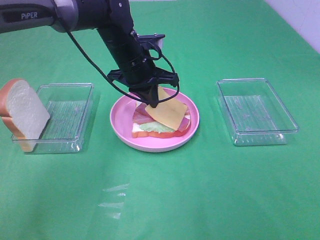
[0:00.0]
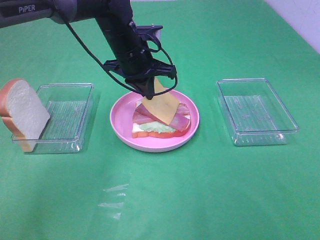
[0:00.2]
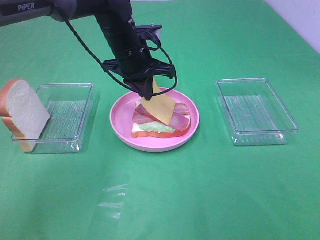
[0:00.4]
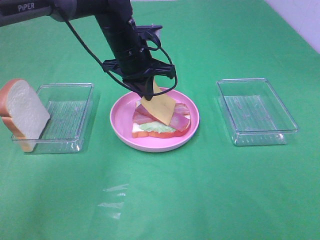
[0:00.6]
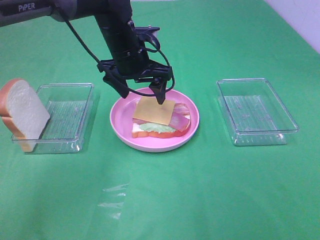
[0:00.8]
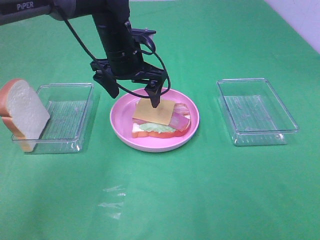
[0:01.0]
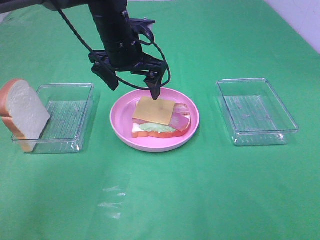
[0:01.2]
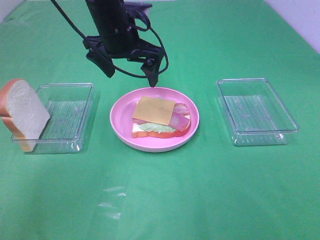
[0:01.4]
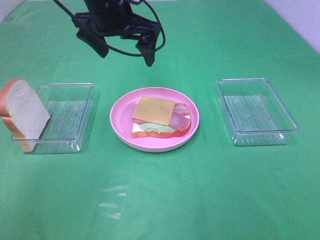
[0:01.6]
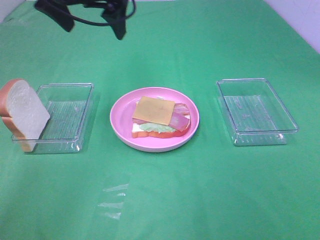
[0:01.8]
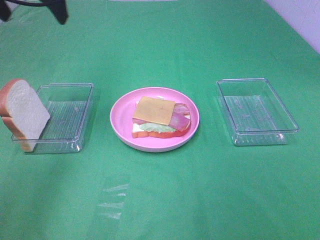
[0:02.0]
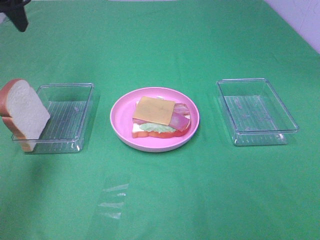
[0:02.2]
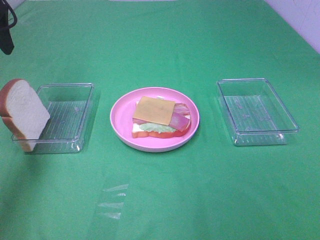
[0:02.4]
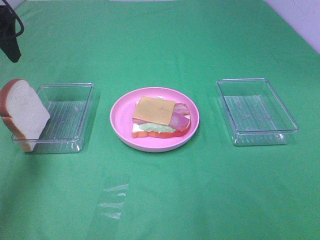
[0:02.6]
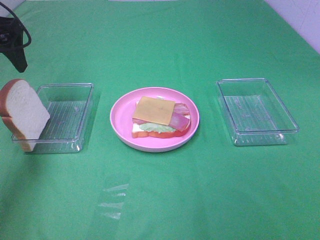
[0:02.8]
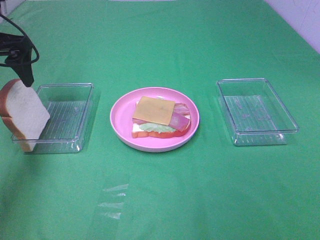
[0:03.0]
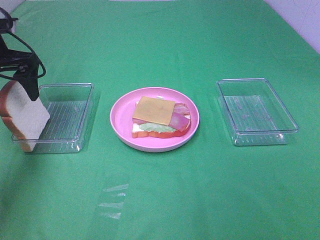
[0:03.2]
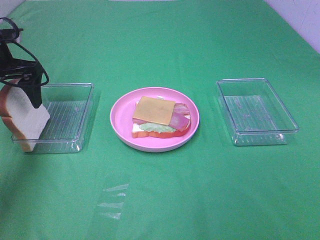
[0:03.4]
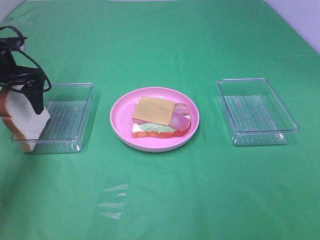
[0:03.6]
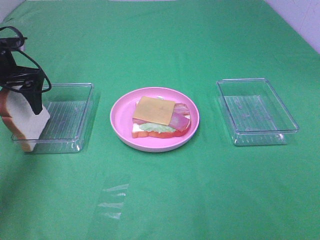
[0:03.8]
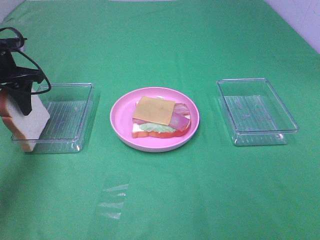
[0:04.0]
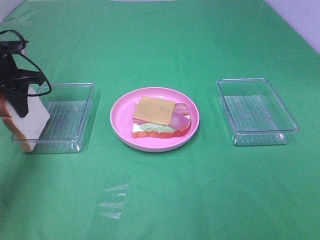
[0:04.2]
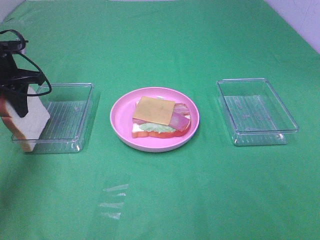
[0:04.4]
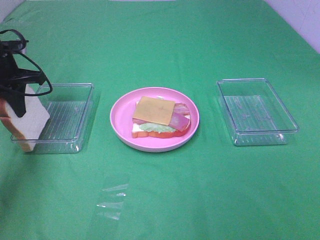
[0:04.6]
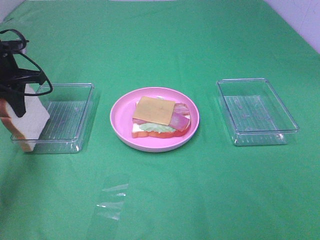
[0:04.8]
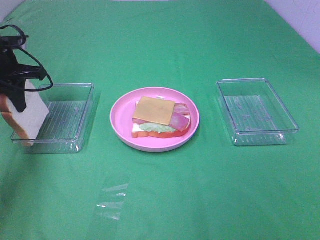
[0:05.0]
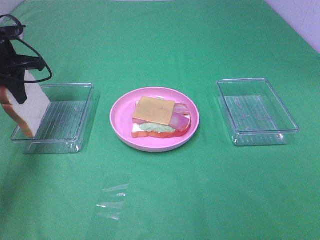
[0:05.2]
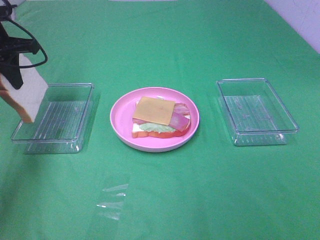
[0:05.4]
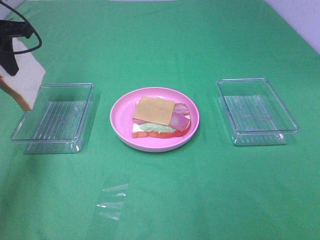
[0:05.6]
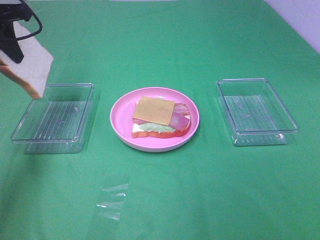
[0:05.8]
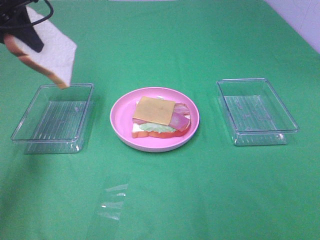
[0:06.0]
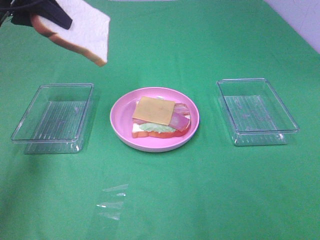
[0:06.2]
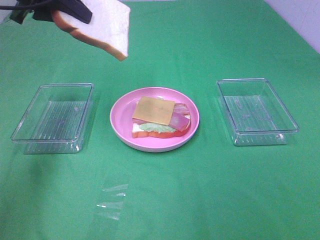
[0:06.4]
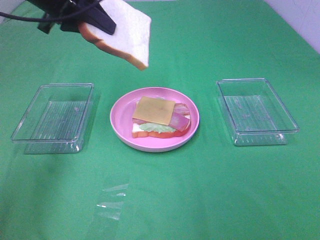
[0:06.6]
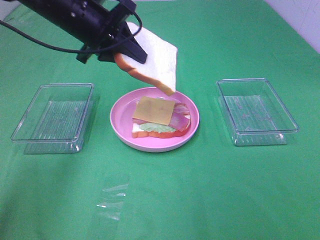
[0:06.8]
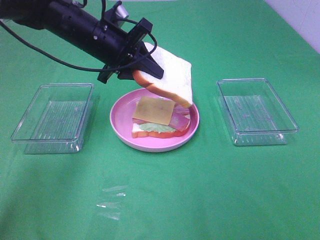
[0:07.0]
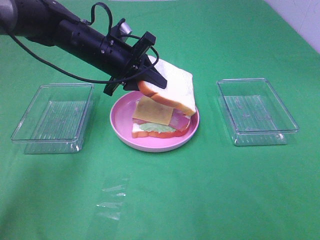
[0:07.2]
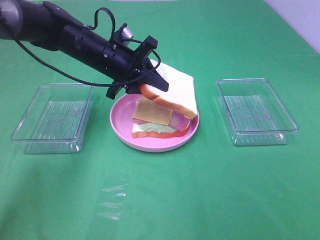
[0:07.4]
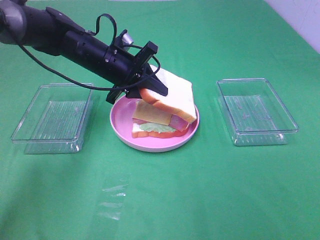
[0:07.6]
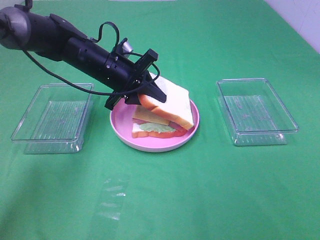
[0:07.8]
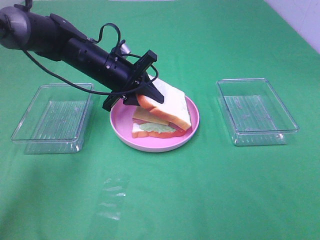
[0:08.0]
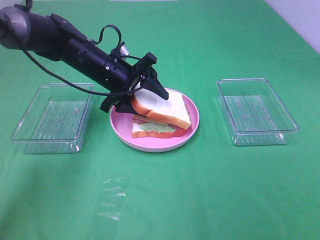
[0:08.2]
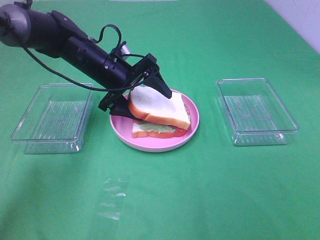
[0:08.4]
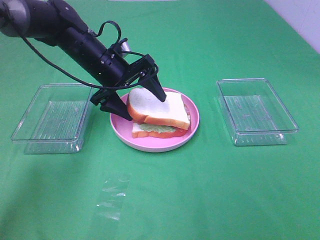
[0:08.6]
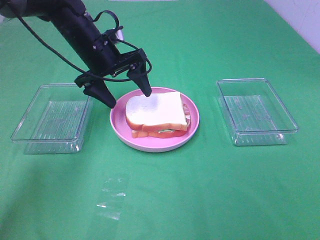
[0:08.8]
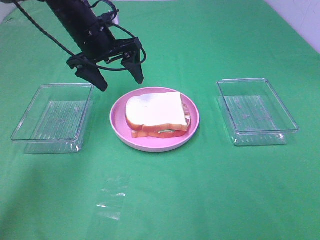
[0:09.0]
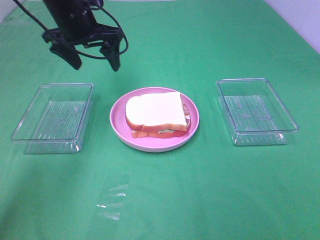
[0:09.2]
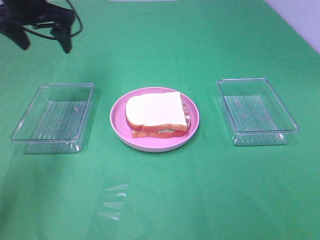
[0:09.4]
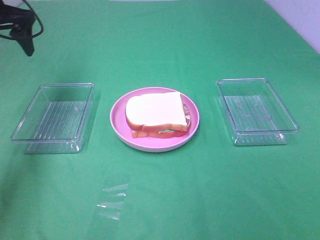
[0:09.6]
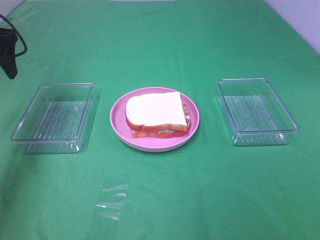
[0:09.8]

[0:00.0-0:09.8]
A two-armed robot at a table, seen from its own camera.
Task of the whole recording: Make sandwiches.
Step, 0.8 to 4.6 s: Left hand:grab the bread slice.
Step, 4.8 to 8.6 s: Left hand:place the bread slice on the plate.
0.0 to 1.4 s: The left gripper goes about 5 cm upward, and opens its fingers.
1.4 to 2.8 s: The left gripper is displaced to the left by approximately 20 cm.
2.8 to 4.2 s: The left gripper travels downward by roughly 10 cm, and closes up.
4.2 to 5.6 s: The left gripper moves upward, about 10 cm.
5.6 to 7.0 s: The left gripper is displaced to the right and downward by roughly 20 cm.
7.0 to 8.4 s: The left gripper moves downward, about 5 cm, and opens its fingers.
8.4 to 9.8 s: The left gripper shifts about 25 cm to the left and upward.

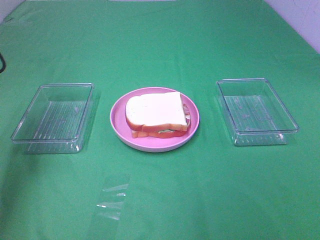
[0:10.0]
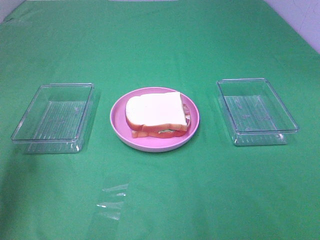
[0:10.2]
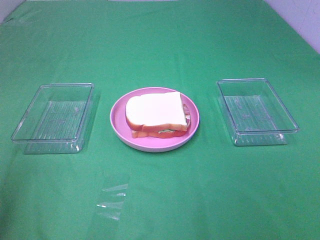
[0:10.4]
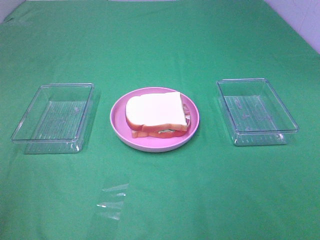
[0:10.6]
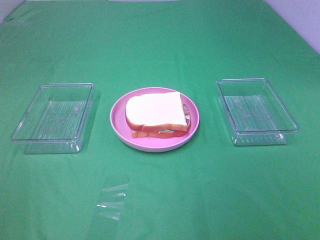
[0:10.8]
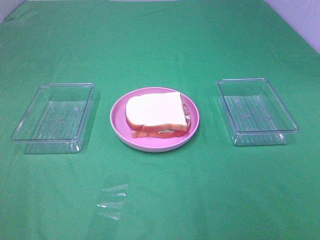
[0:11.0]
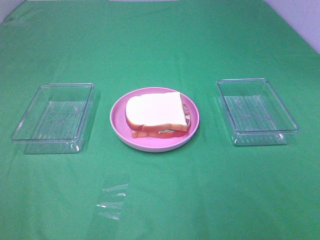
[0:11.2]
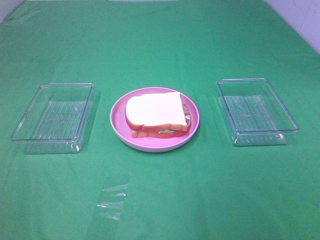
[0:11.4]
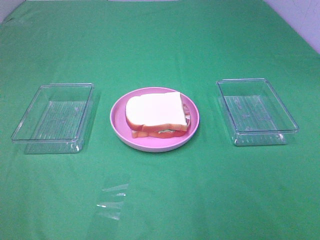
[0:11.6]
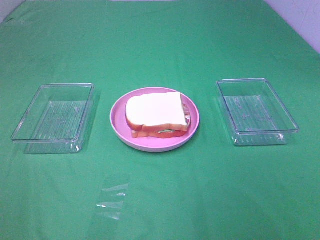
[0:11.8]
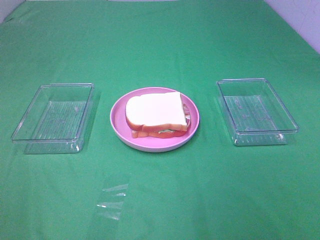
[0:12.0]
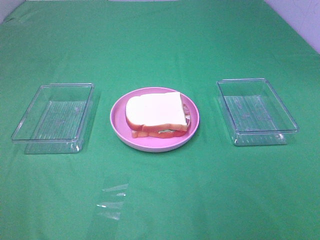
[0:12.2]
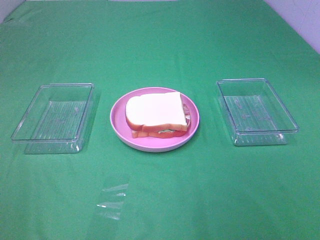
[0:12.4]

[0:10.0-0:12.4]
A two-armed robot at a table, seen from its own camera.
Task of the whole recording: Make sandwiches.
10.0 to 11.2 s: The left gripper goes about 35 cm backward.

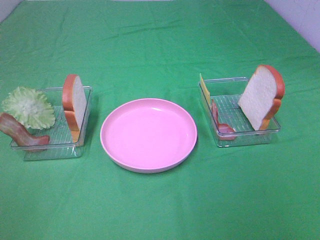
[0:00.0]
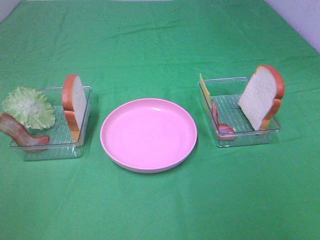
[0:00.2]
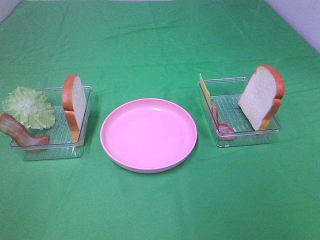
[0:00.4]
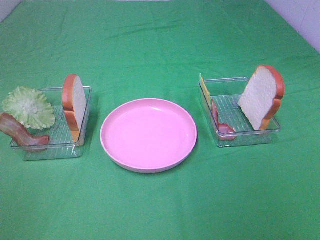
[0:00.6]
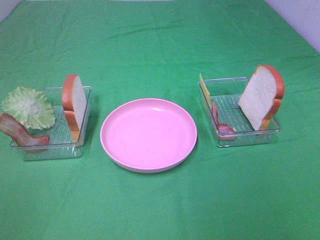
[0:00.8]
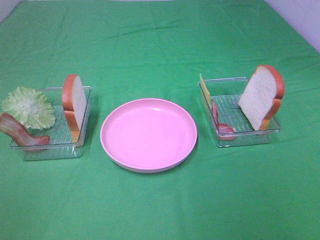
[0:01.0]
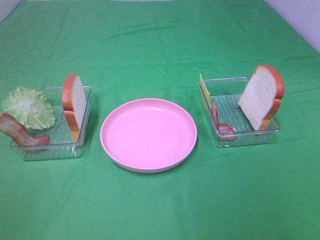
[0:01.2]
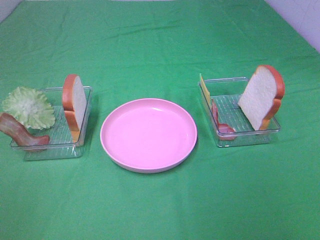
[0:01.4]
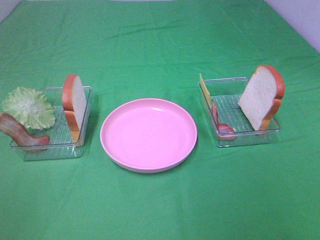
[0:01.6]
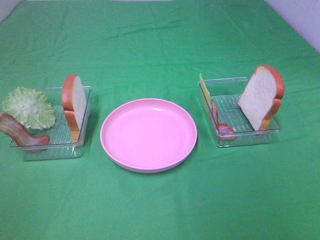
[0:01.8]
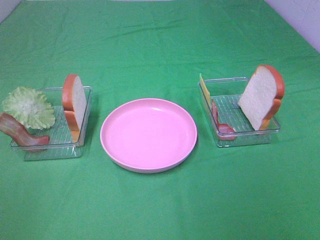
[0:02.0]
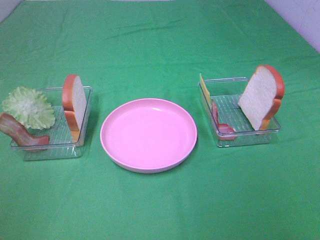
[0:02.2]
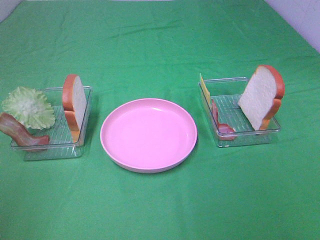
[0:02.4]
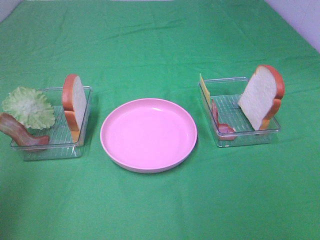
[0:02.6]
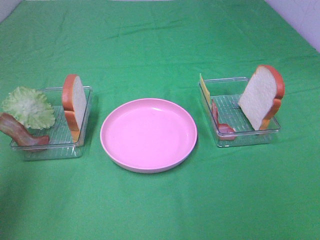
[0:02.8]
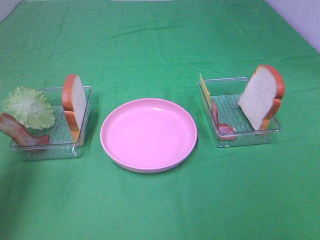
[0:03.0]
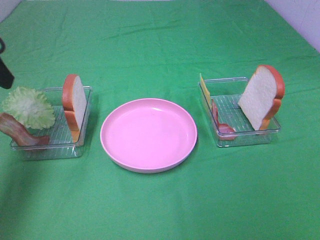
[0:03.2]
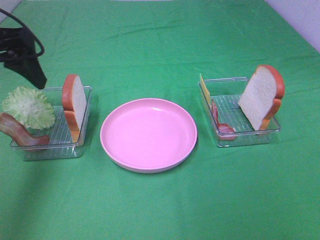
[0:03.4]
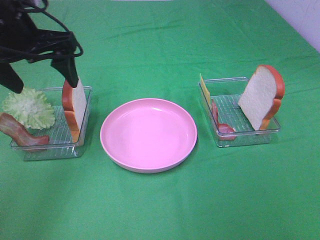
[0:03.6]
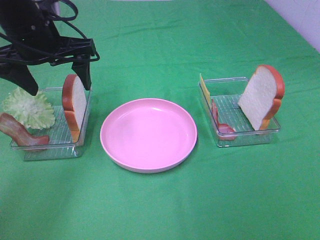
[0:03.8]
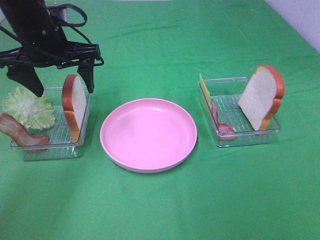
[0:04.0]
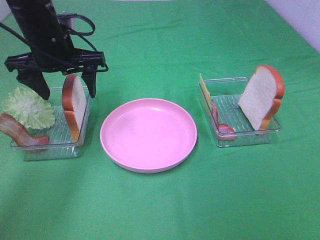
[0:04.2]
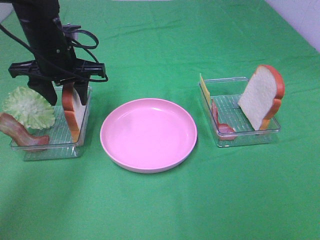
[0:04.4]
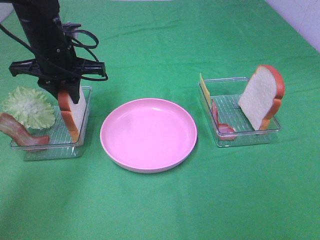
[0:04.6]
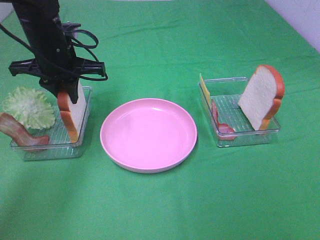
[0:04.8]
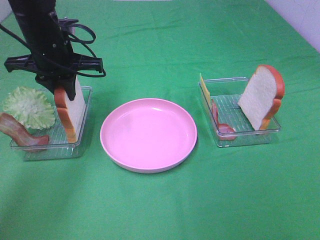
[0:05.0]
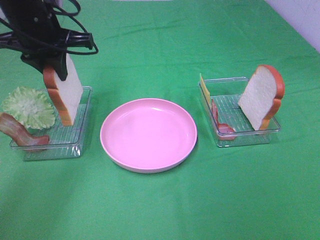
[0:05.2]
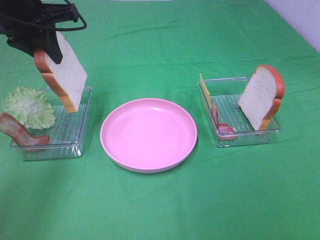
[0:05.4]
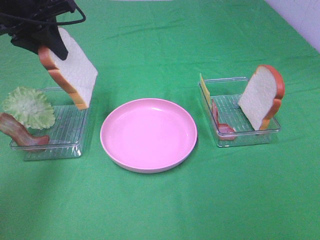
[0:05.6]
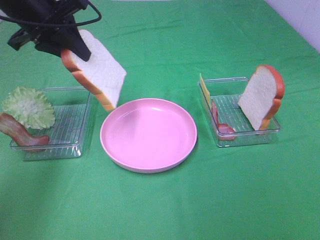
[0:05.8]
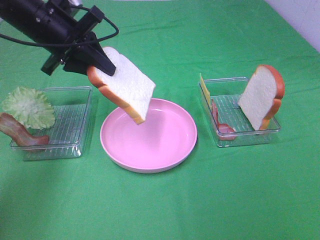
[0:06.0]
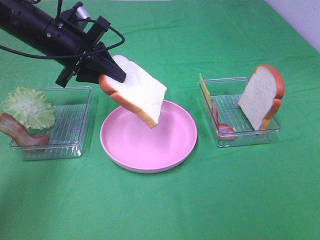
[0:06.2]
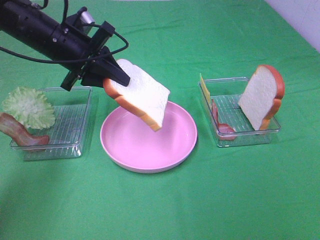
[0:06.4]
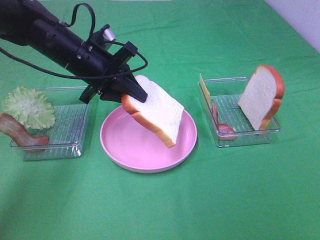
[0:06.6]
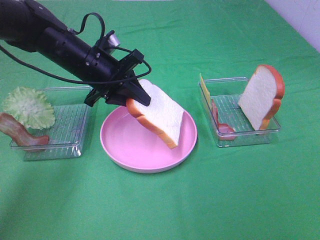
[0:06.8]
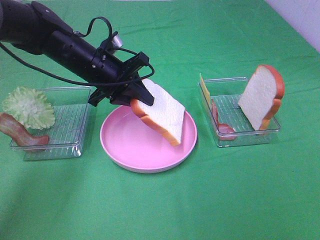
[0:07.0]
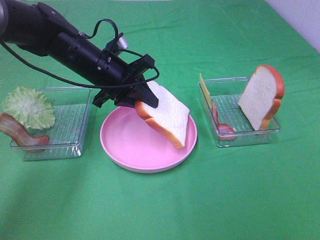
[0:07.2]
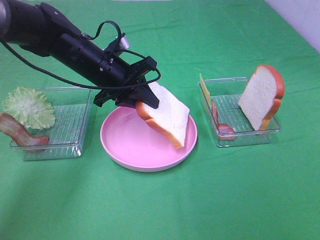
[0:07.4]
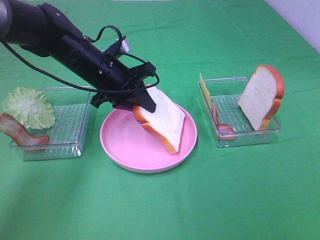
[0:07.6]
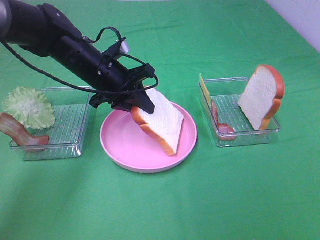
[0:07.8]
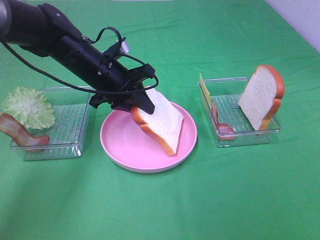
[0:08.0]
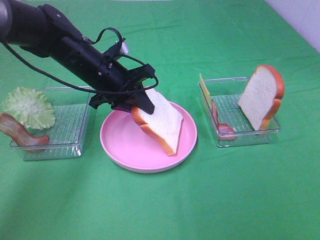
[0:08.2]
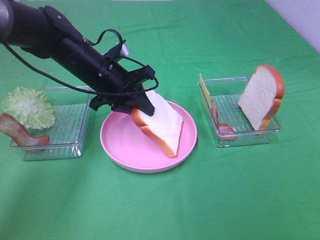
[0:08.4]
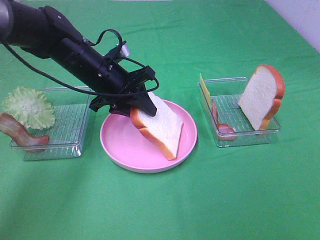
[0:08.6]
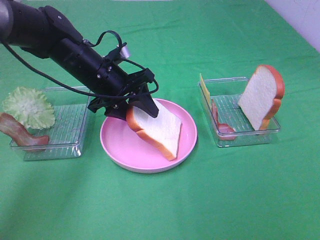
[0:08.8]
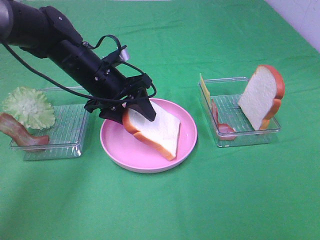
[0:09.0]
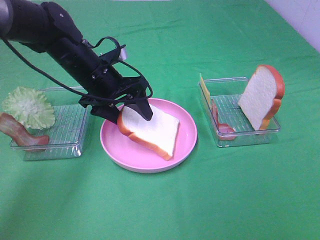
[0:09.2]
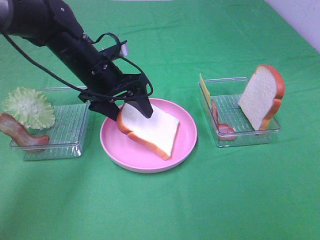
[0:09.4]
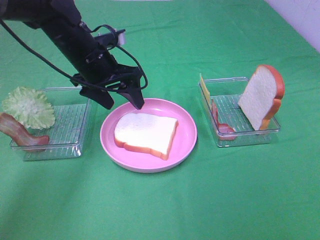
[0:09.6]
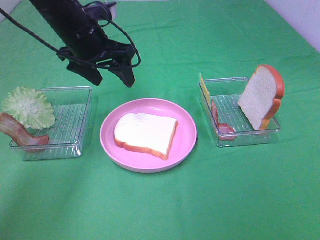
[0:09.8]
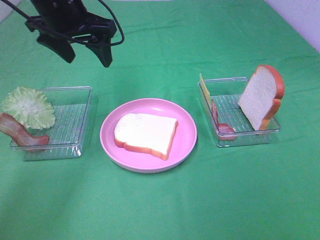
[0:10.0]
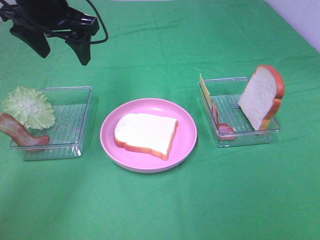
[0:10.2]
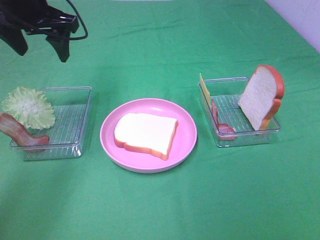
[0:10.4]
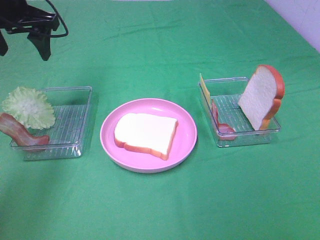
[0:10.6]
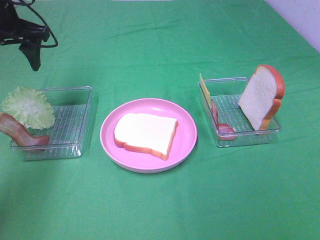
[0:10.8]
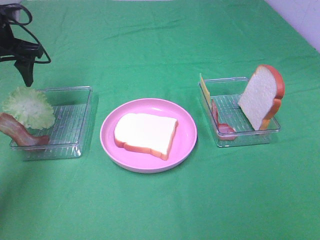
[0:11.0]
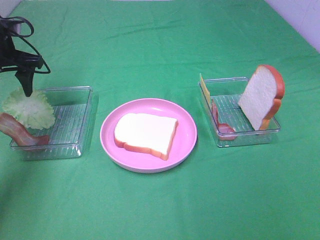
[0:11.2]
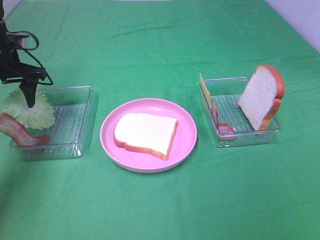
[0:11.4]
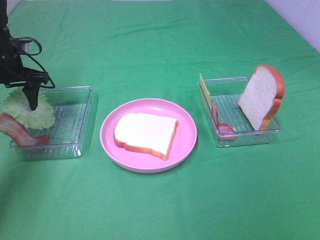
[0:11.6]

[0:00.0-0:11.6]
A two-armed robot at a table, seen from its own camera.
Task of the whole recording: Make sandwiches.
Step, 0.0 to 4.6 s: Left hand:grab the bread slice.
Step, 4.8 to 9.6 s: Left hand:place the bread slice on the plate.
0.0 to 1.4 s: Both grippers stay about where they are.
1.4 to 2.8 s: The left gripper travels forward and upward by roughly 20 cm.
2.8 to 4.4 s: The left gripper moves forward, downward and to the right, some 30 cm, and closes.
4.4 to 5.8 s: The left gripper moves upward, some 10 cm, and closes its fingers.
5.8 to 7.2 s: The left gripper moves downward and to the right, some 15 cm.
7.2 to 8.8 s: The grippers make only small movements.
8.8 to 10.2 s: The left gripper heads upward and to the left, covering about 15 cm.
10.2 to 11.6 s: The left gripper heads downward, to the left and forward, covering about 20 cm.
